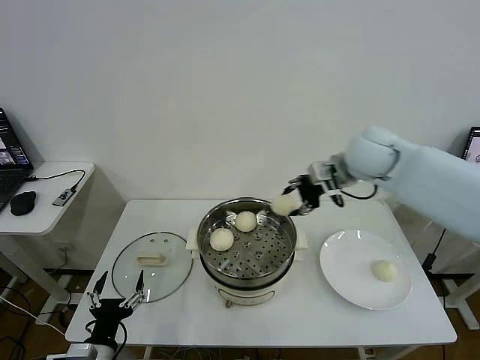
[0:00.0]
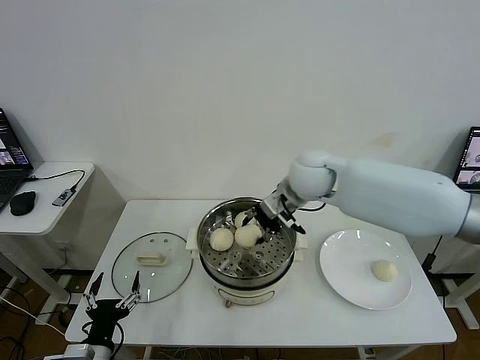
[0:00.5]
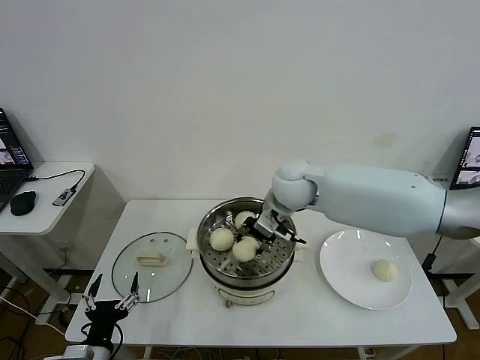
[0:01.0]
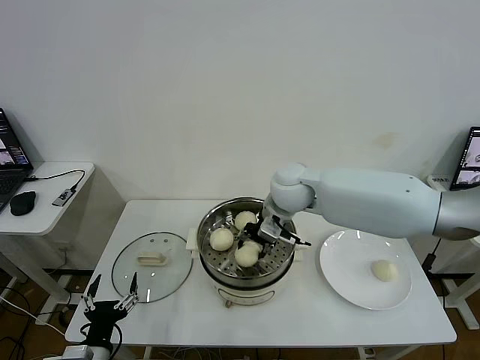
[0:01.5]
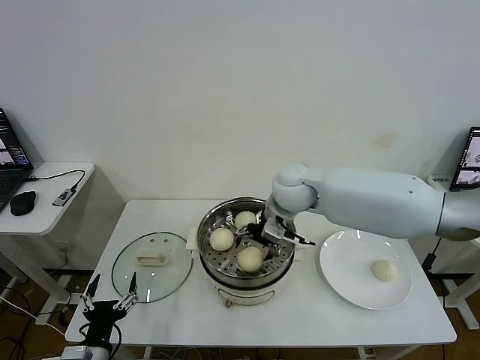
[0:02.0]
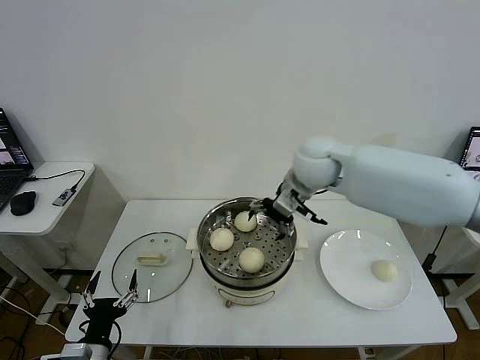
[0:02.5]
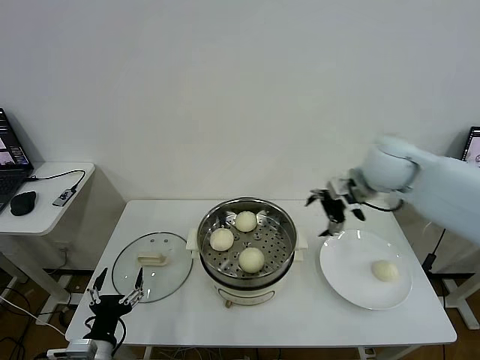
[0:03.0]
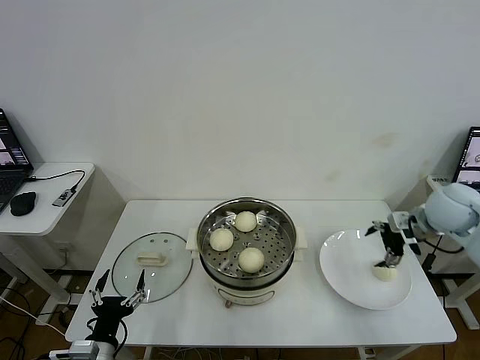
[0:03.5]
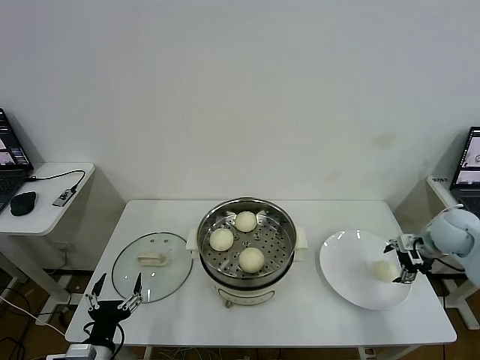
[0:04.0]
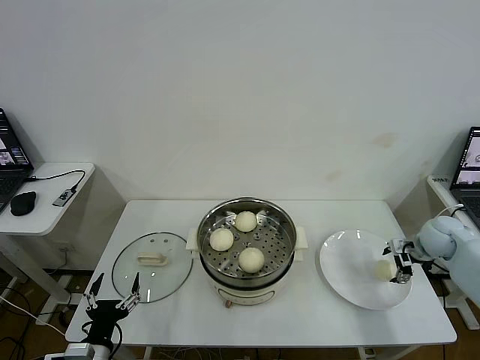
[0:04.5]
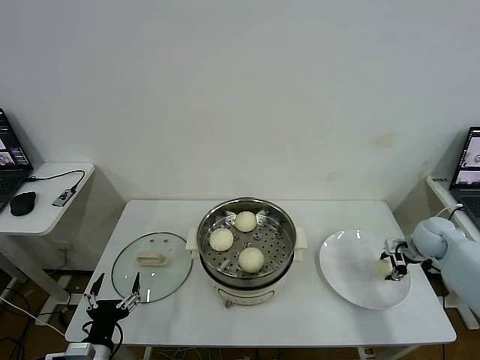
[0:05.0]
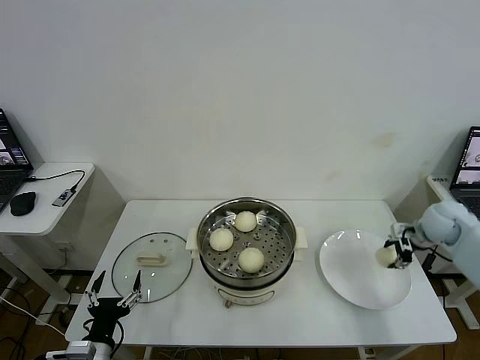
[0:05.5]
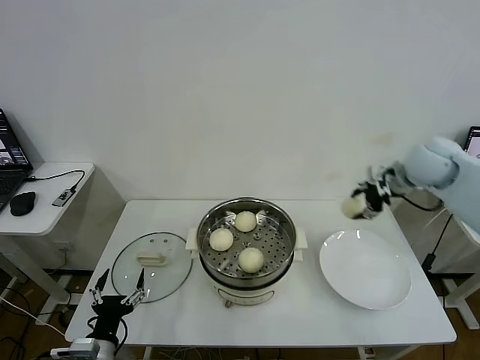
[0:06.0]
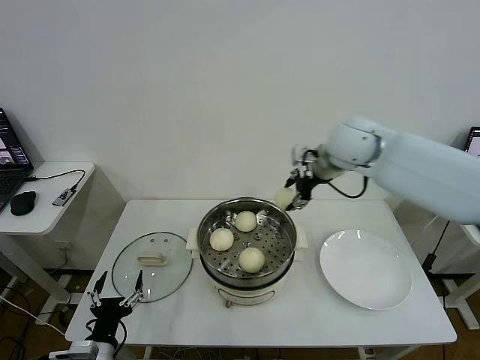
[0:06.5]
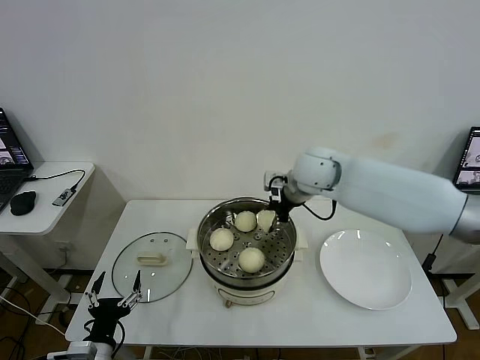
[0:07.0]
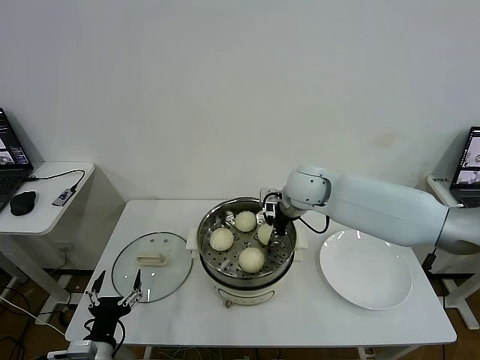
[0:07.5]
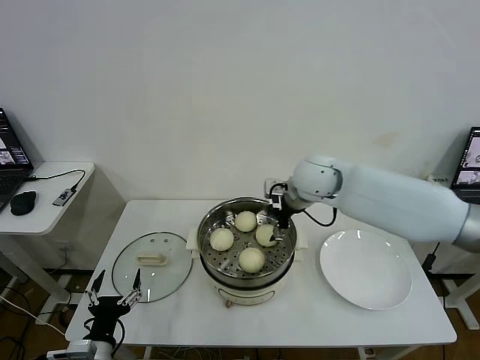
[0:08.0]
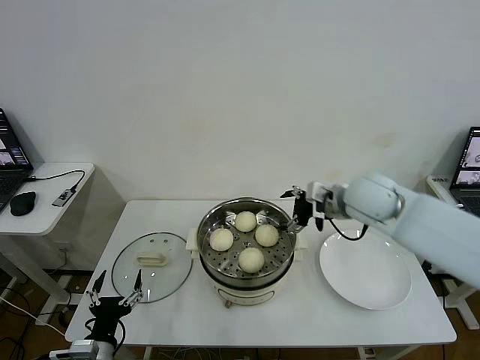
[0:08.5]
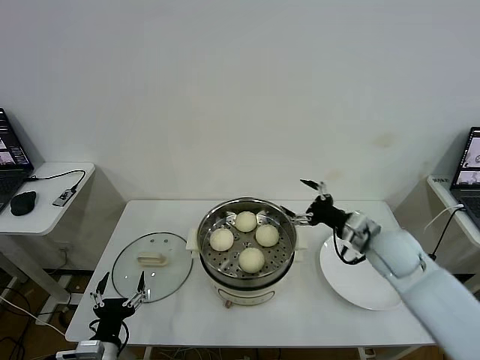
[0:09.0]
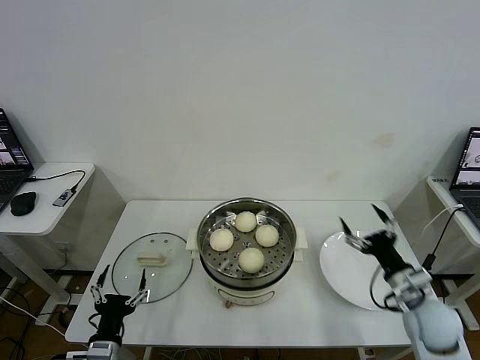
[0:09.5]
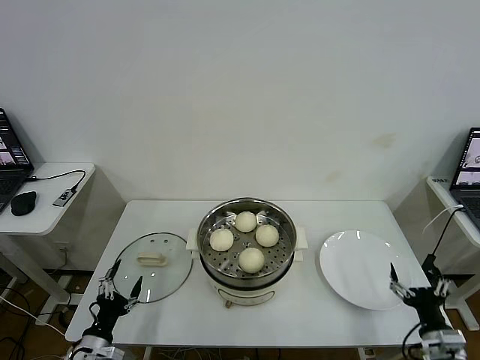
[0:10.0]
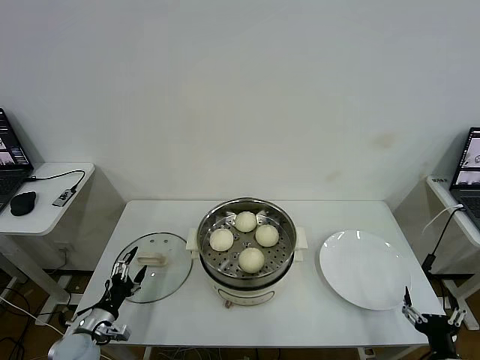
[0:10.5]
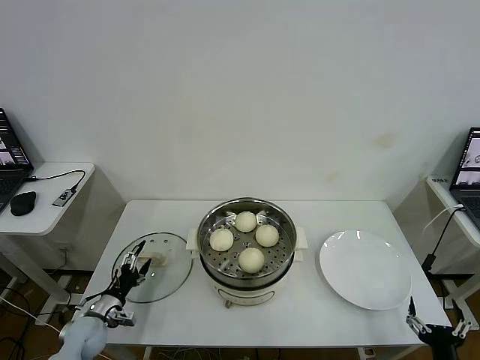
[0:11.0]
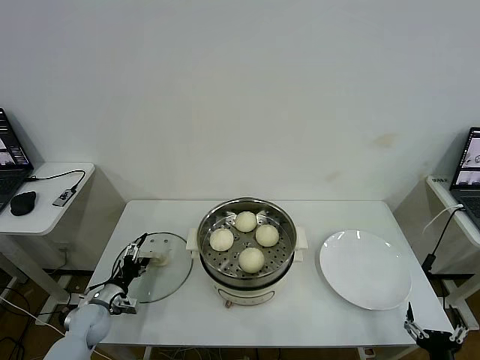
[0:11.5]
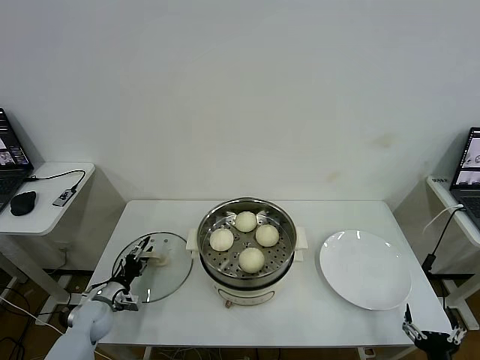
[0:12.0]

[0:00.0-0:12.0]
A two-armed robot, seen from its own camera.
Task of the whole recording: take steamed baozi put them in steamer then cover it.
Step, 0:00.0 to 0:02.0: Place the baozi on the steamer with right gripper.
Step, 0:02.5 to 0:05.0: Grasp the baozi in the plate with right gripper.
Step, 0:05.5 to 0:08.0: Place the baozi on the steamer with right gripper.
0:00.0 to 0:02.0: The right gripper goes about 15 cm to the left and downward, and opens.
0:02.0 to 0:04.0: The right gripper heads to the right, covering roughly 35 cm.
0:04.0 to 0:06.0: The right gripper is displaced upward, to the left and forward by approximately 20 cm, and closes its fingers.
0:06.0 to 0:08.0: The right gripper goes some 20 cm to the left, and opens.
0:08.0 to 0:10.0: The right gripper goes roughly 50 cm backward, to the right and downward. The left gripper shifts some 5 cm to the left and downward.
0:10.0 to 0:12.0: The left gripper goes about 15 cm forward, and closes up. Meanwhile the right gripper shifts about 10 cm backward.

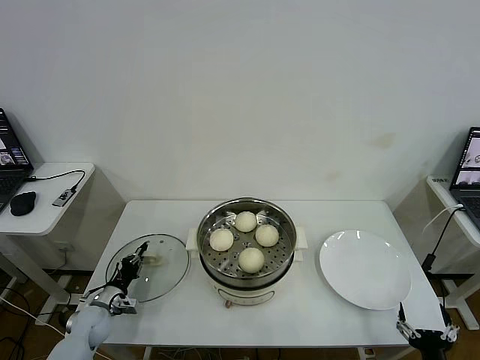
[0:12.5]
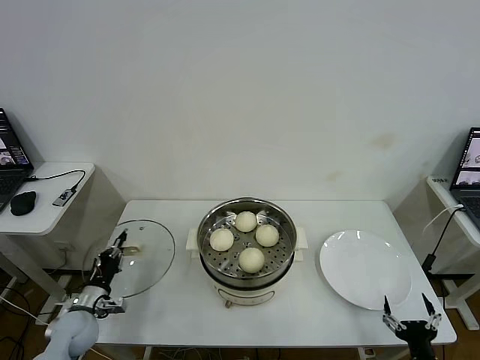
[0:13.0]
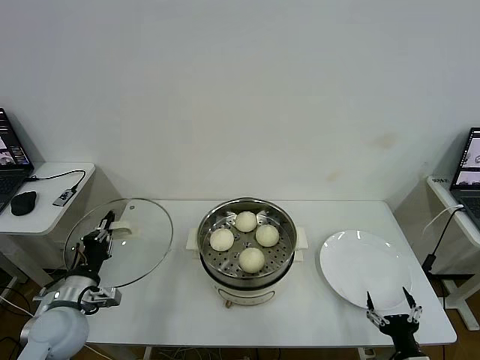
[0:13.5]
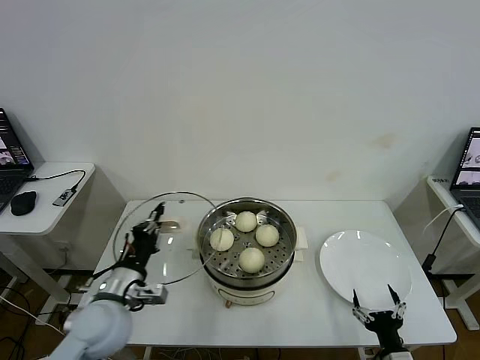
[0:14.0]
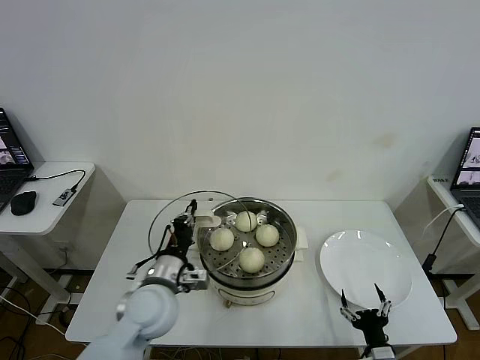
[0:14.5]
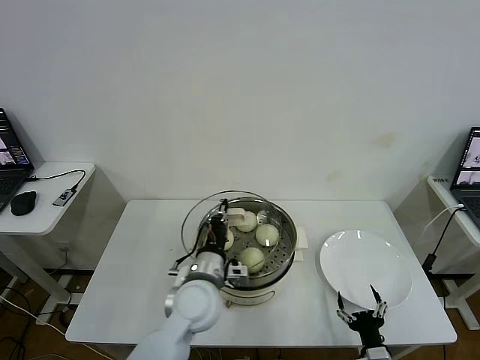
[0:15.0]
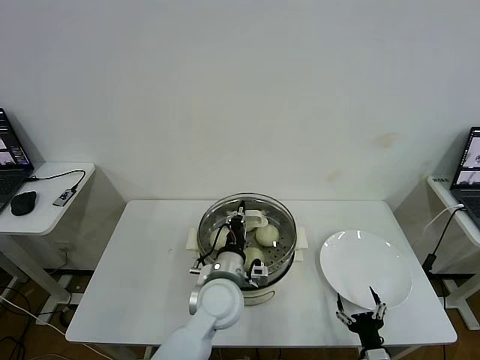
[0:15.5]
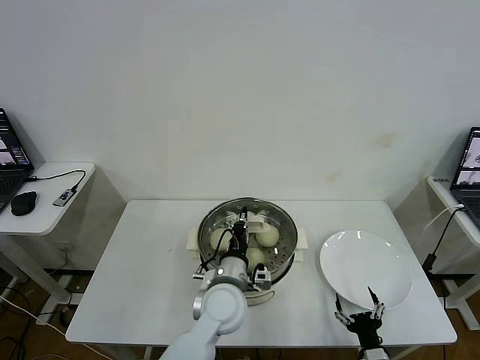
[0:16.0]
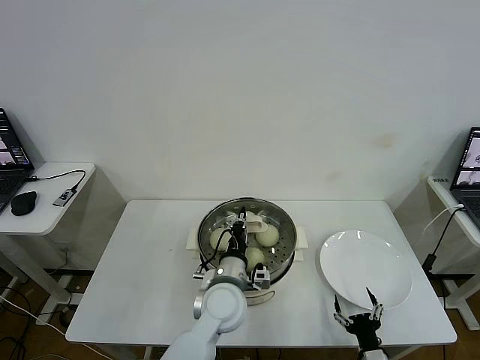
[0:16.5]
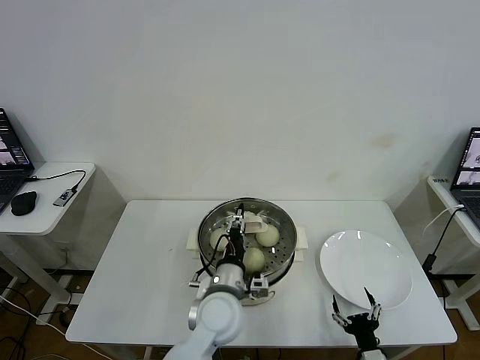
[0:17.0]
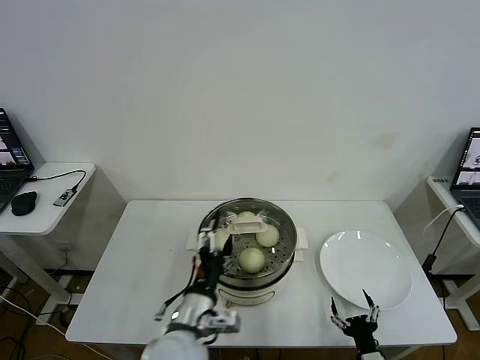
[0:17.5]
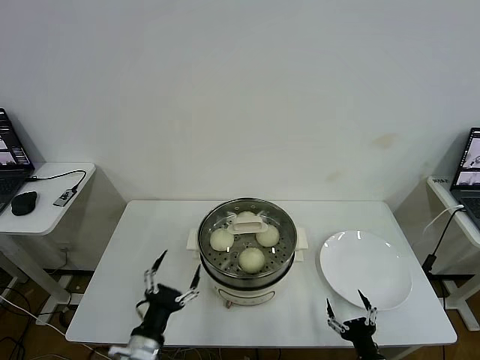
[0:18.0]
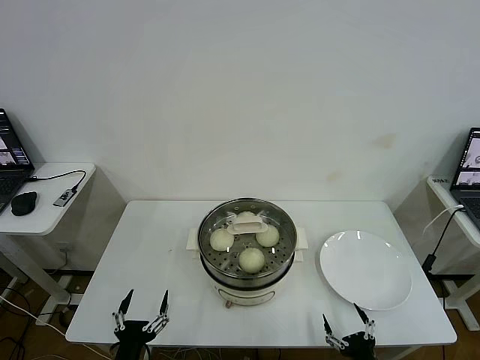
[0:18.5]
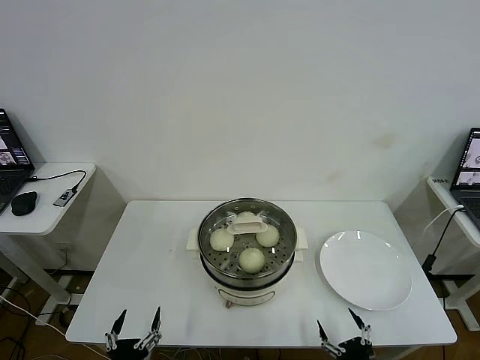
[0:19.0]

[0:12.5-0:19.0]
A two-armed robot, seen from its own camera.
Task of the whole recording: take steamed baozi put them in steamer then cover it.
Step, 0:13.0 to 0:17.0: Place the pot lid on the steamer with left gripper.
0:12.5 to 0:14.5: The left gripper is displaced to the right and upward by about 30 cm, while the right gripper heads to the left and forward, covering some 10 cm.
0:14.5 to 0:17.0: The left gripper travels to the right by about 15 cm, and opens up.
0:17.0 to 0:19.0: The left gripper heads to the left, backward and downward, covering some 35 cm, and opens its fingers, while the right gripper is displaced backward by roughly 5 cm.
